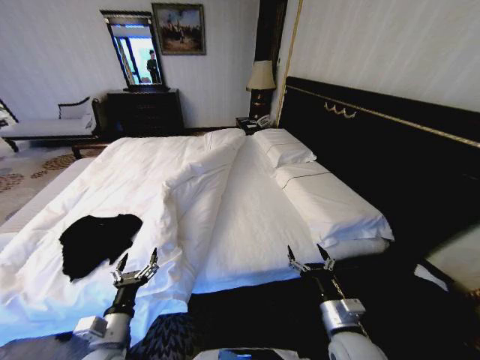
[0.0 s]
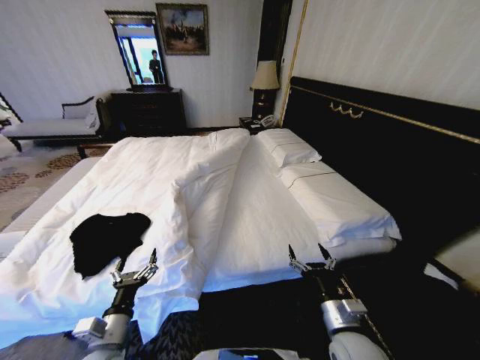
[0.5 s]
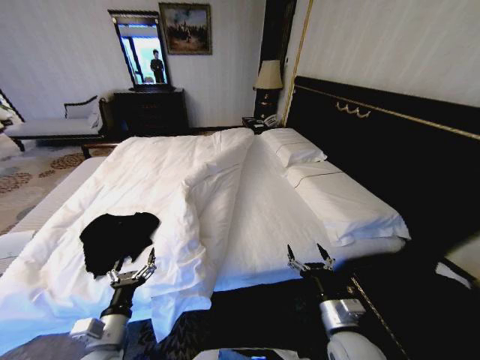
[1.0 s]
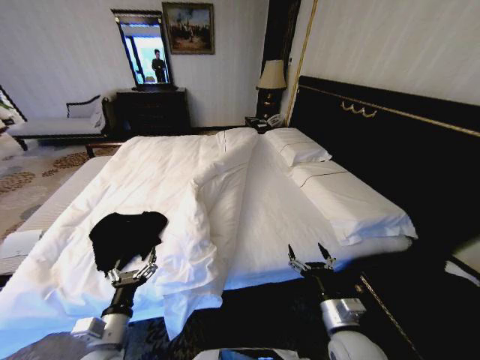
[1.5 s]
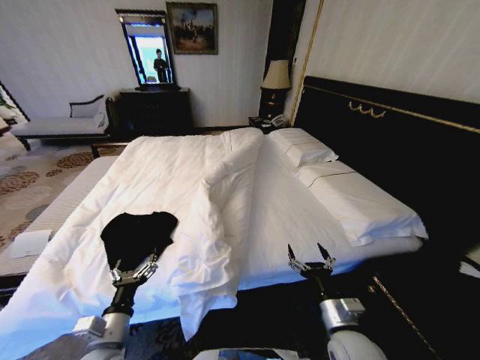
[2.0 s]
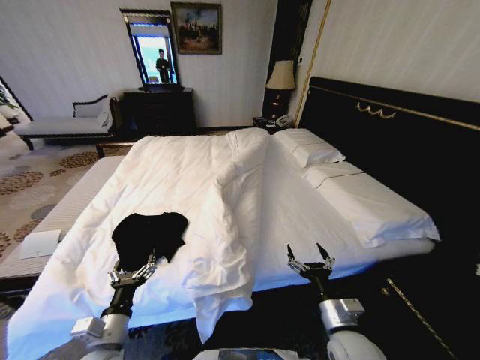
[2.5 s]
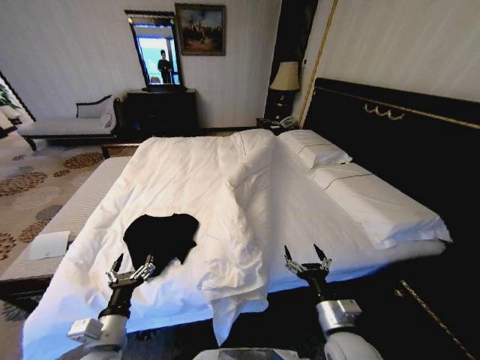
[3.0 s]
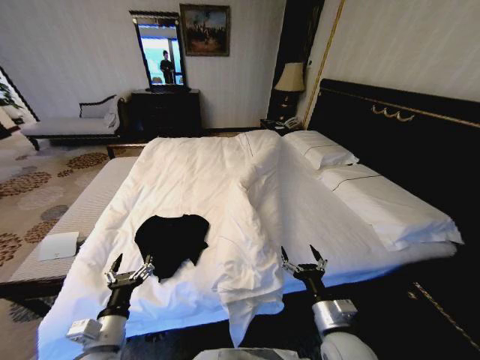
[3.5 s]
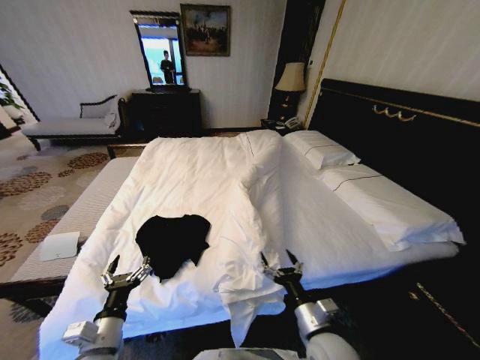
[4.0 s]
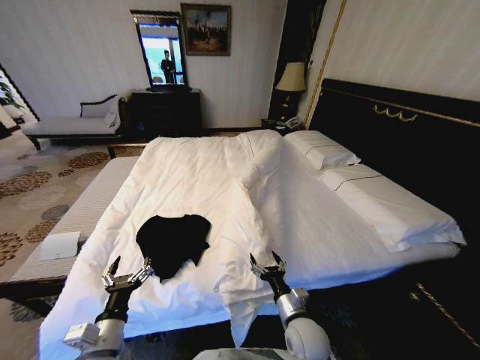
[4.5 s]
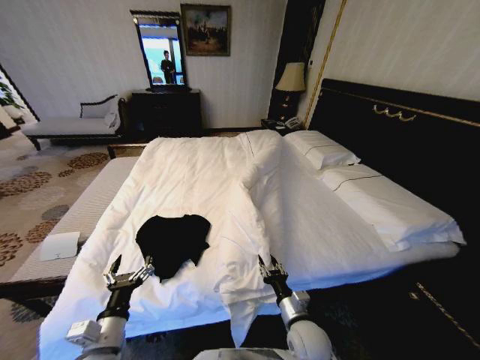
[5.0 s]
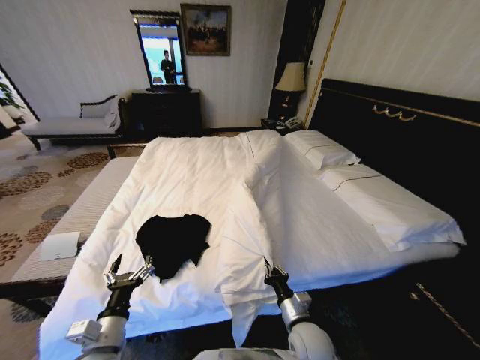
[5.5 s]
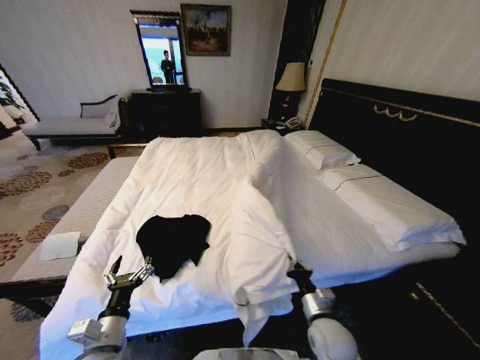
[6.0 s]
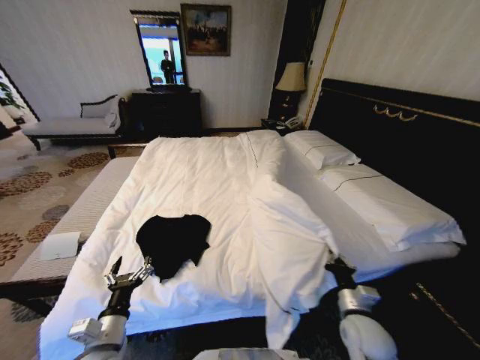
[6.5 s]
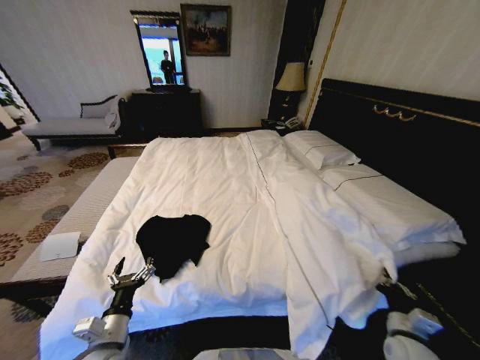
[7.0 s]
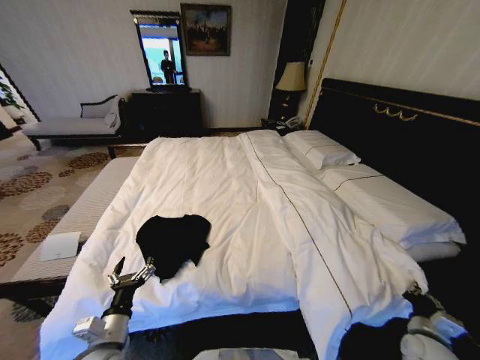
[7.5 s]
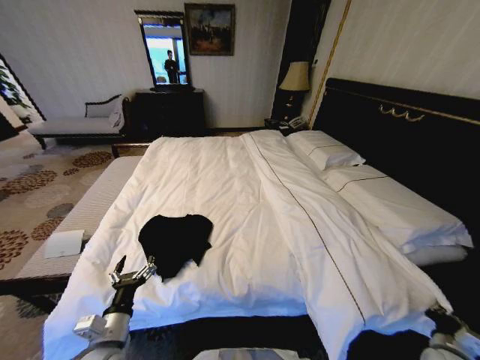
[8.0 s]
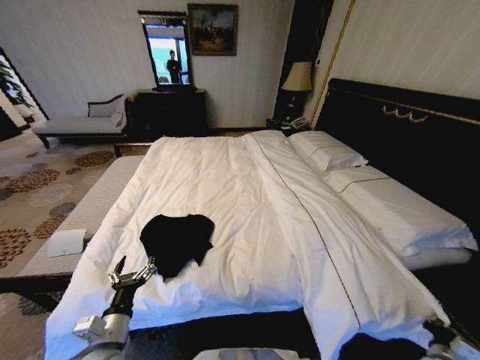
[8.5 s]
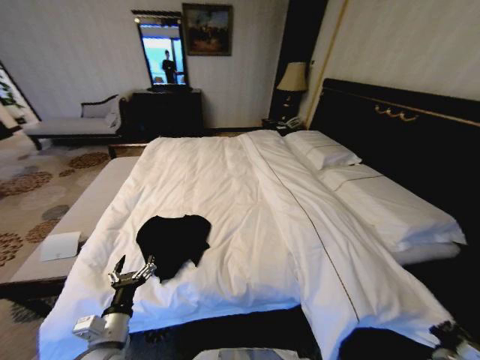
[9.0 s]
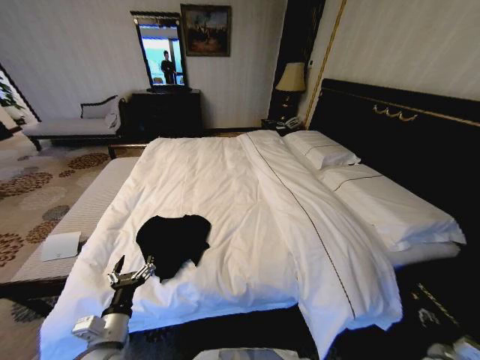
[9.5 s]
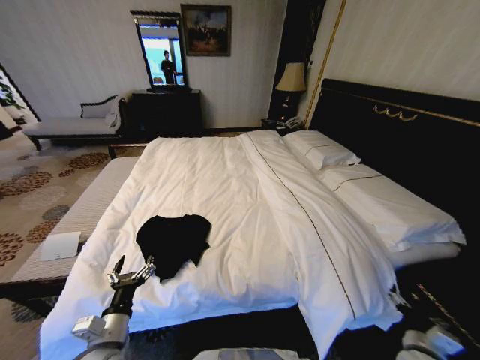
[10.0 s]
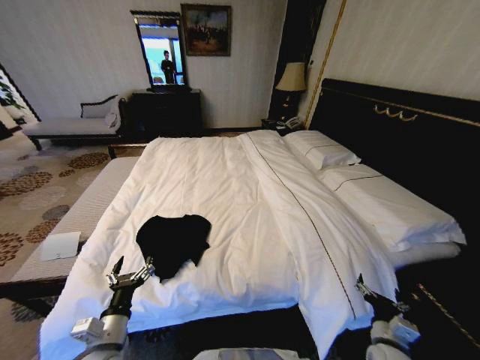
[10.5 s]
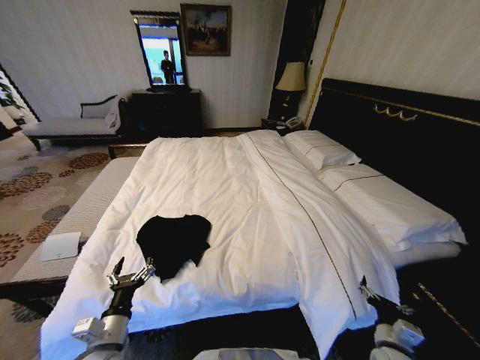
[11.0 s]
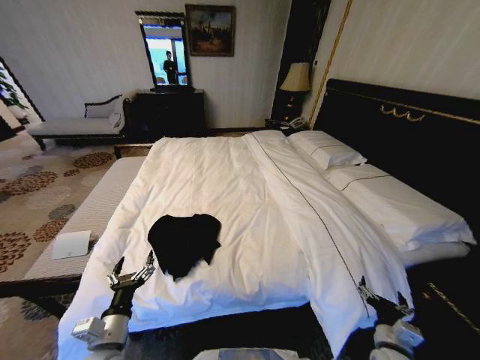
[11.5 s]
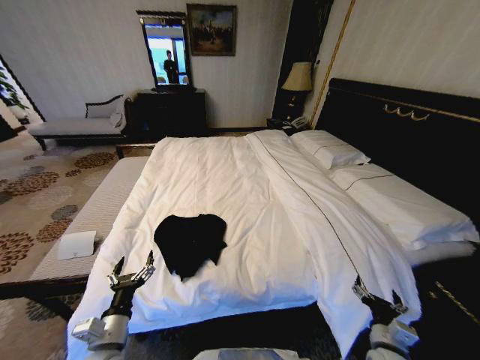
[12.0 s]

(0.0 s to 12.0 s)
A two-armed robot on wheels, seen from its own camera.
Task of the whole recording: Fold the clothes on the bed.
4.0 s - 6.0 s: The right gripper travels downward by approximately 5 cm, and closes its fingers.
6.0 s - 8.0 s: The right gripper shifts approximately 30 cm to the right.
8.0 s - 10.0 s: The right gripper goes about 10 cm to the left, and opens.
10.0 s - 12.0 s: The right gripper heads to the left, covering approximately 5 cm.

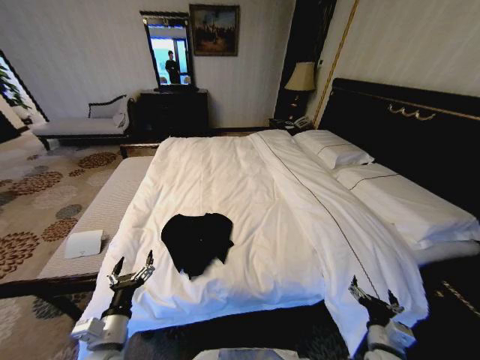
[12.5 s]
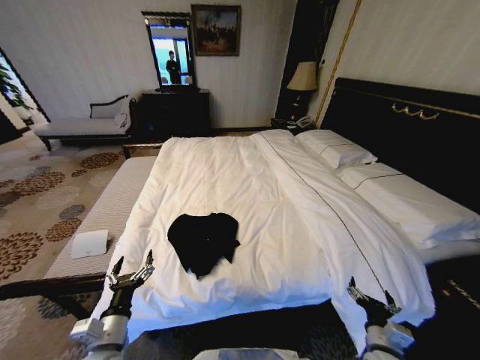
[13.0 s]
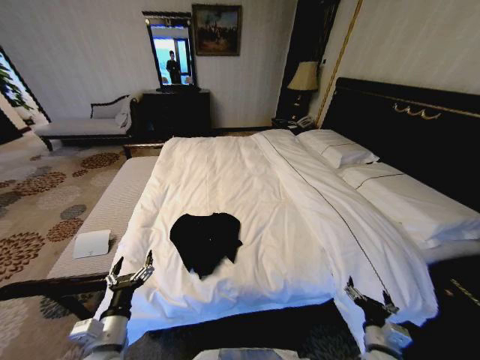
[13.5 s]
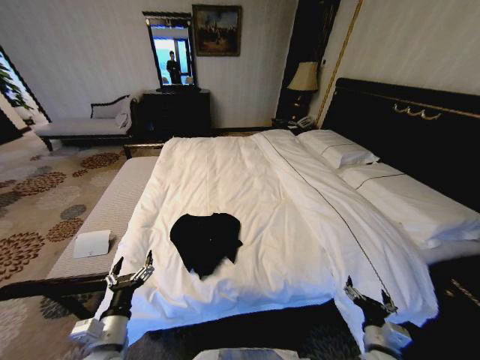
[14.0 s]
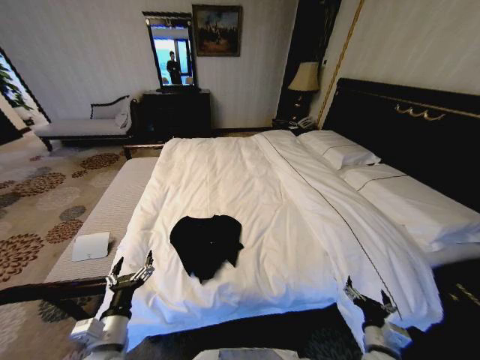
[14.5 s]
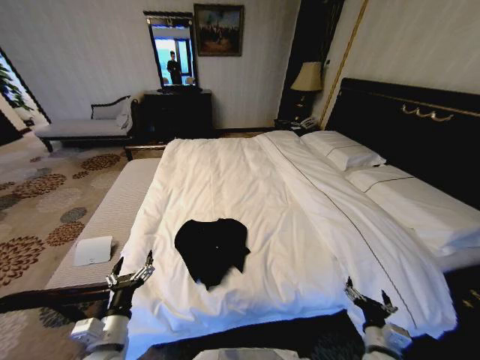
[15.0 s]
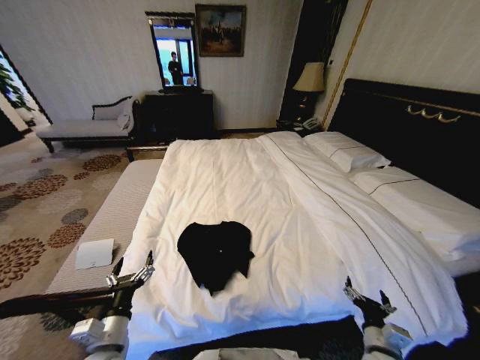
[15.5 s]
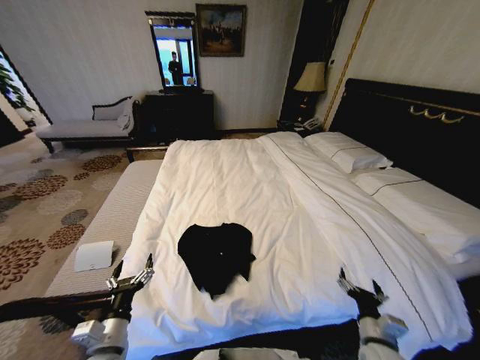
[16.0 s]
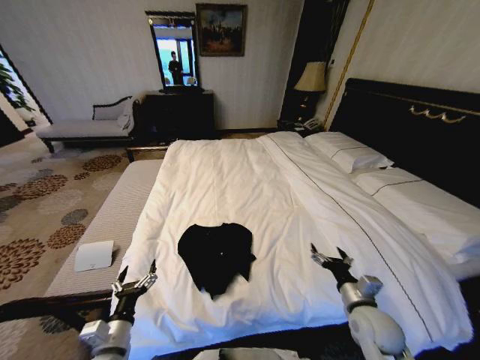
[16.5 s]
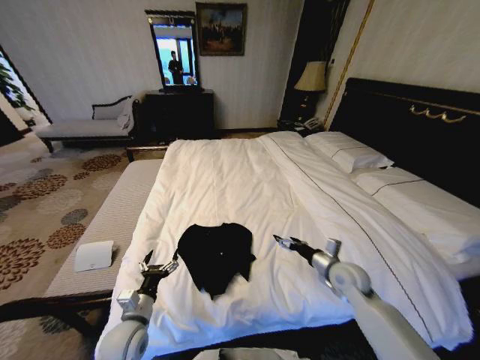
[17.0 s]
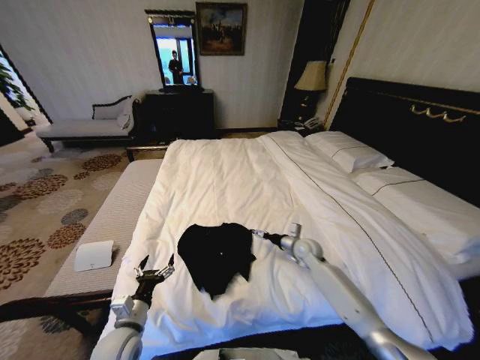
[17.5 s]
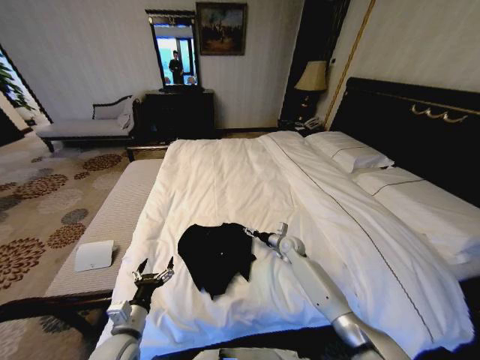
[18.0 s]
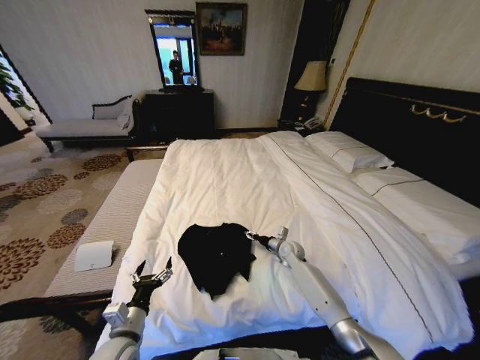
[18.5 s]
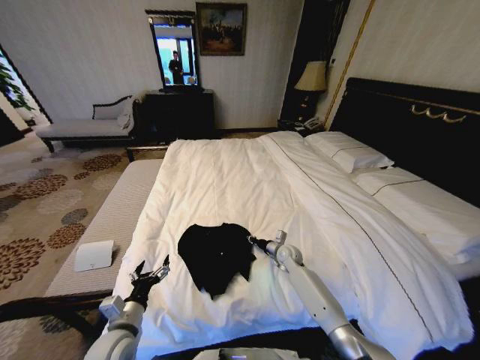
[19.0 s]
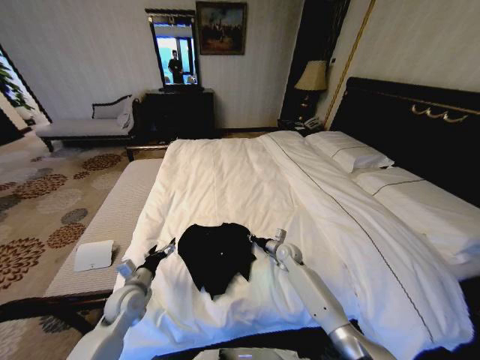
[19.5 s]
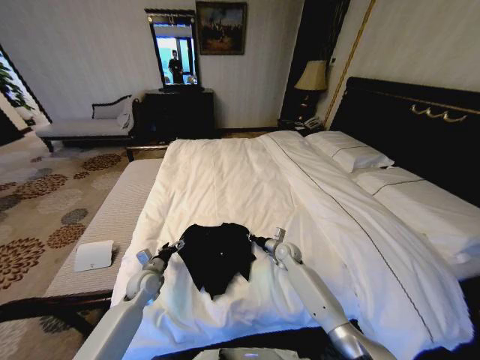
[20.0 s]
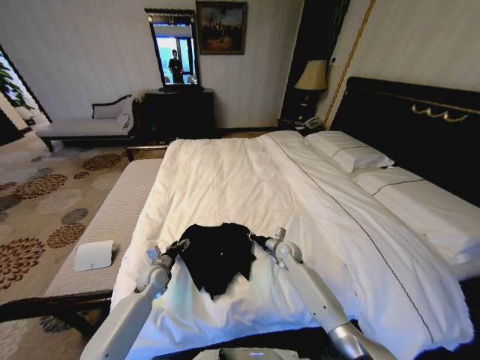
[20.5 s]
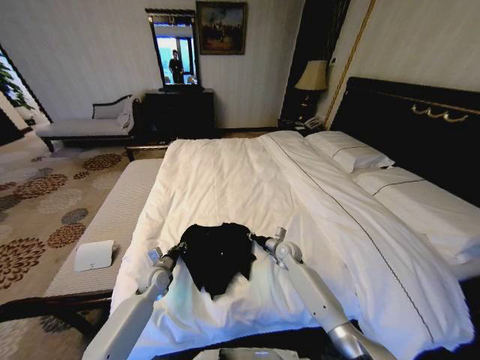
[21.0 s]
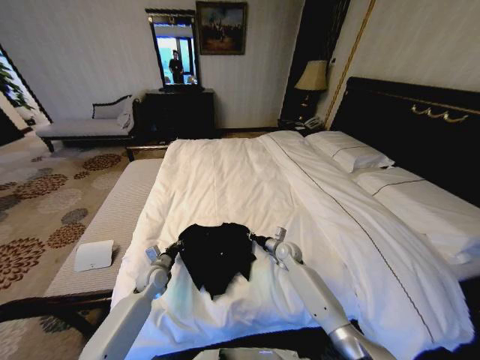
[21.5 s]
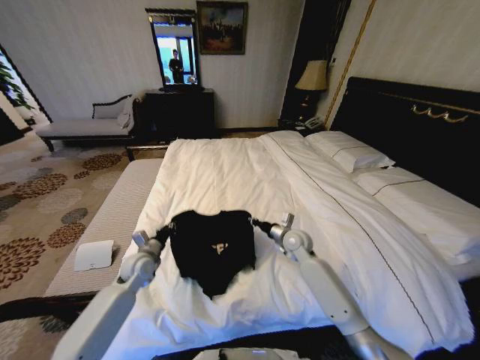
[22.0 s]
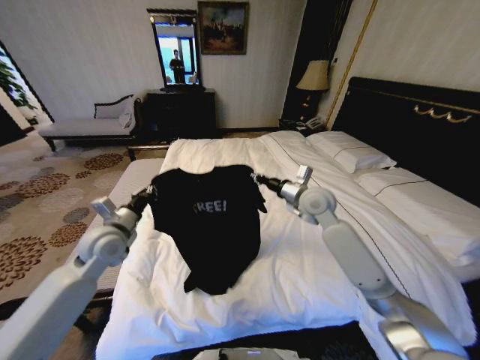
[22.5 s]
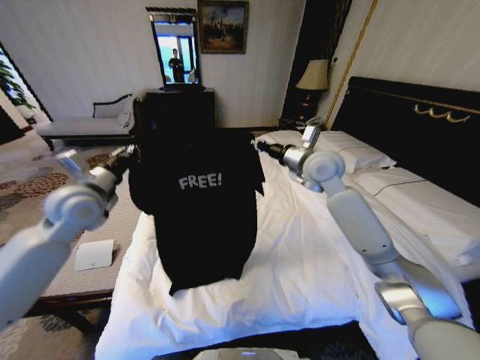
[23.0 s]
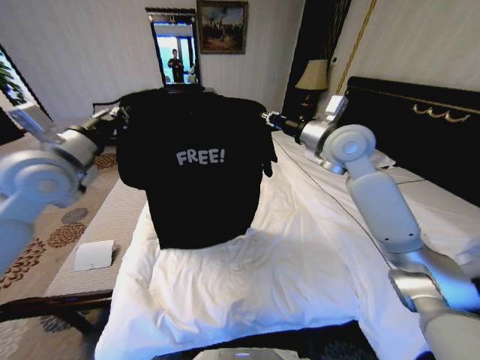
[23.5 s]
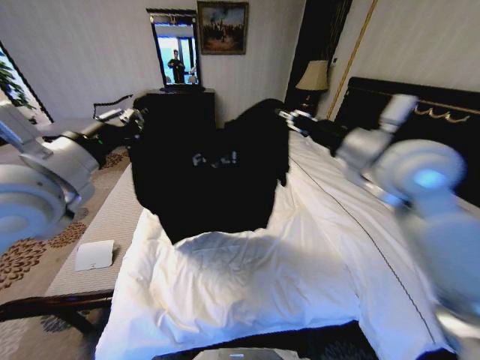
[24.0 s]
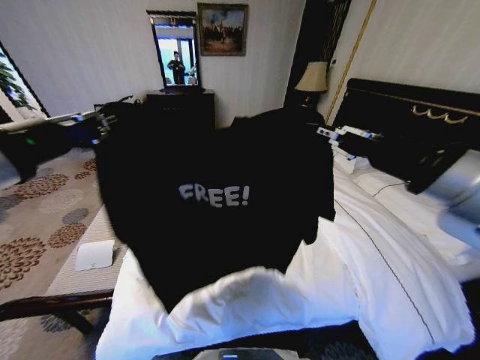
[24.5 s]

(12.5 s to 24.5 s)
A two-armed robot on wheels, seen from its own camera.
Task of the whole recording: Fold the clothes on the bed.
12.5 s - 14.5 s: The two grippers keep their place.
14.5 s - 16.5 s: The right gripper shifts approximately 10 cm forward and upward.
16.5 s - 18.5 s: The right gripper is displaced forward by some 25 cm.
18.5 s - 20.5 s: The left gripper heads forward and downward, covering some 25 cm; the right gripper closes its fingers.
20.5 s - 22.5 s: The grippers both shift upward by roughly 25 cm. The left gripper closes.
22.5 s - 24.5 s: The right gripper is displaced backward and upward by about 30 cm; the left gripper heads upward and backward, covering approximately 35 cm.

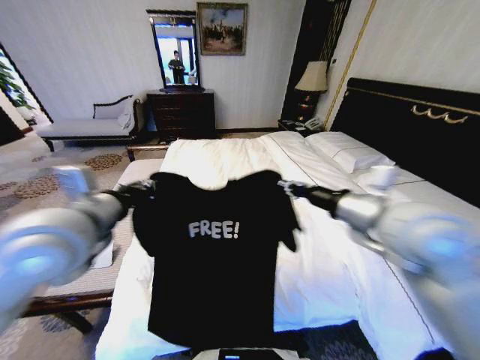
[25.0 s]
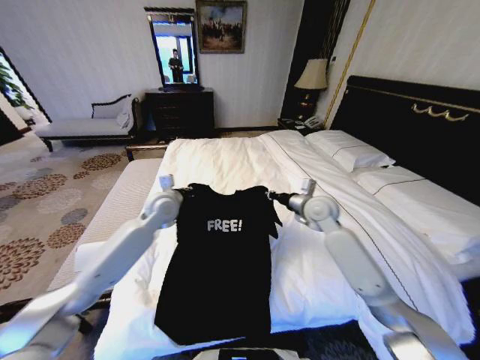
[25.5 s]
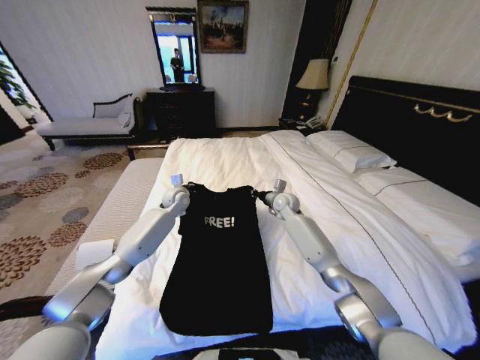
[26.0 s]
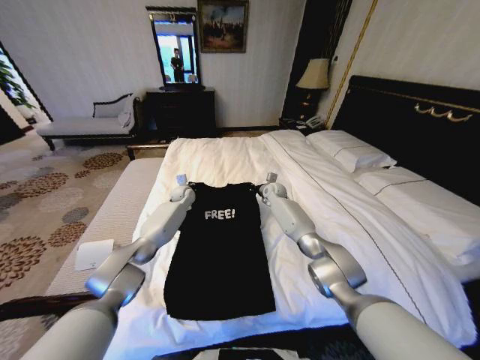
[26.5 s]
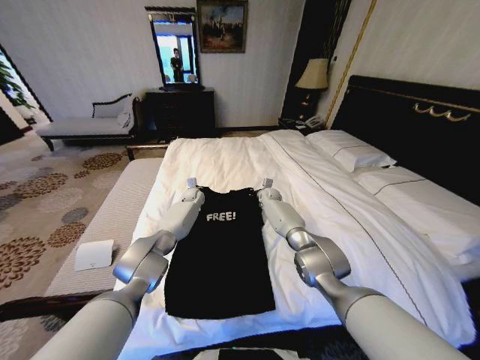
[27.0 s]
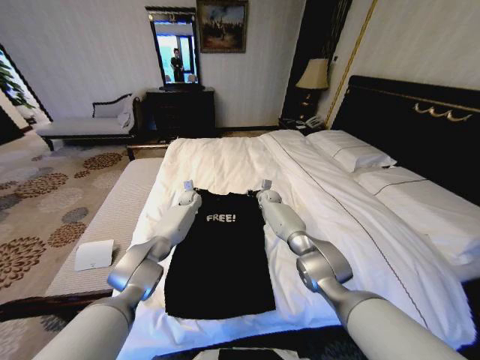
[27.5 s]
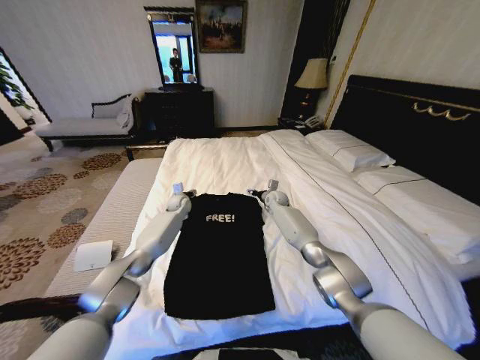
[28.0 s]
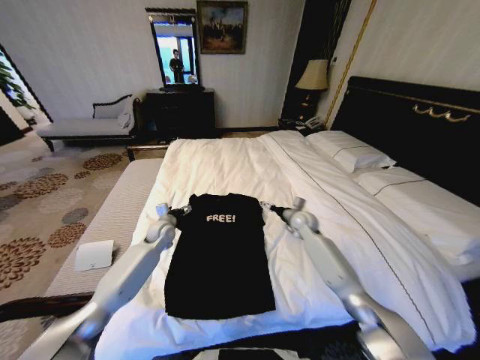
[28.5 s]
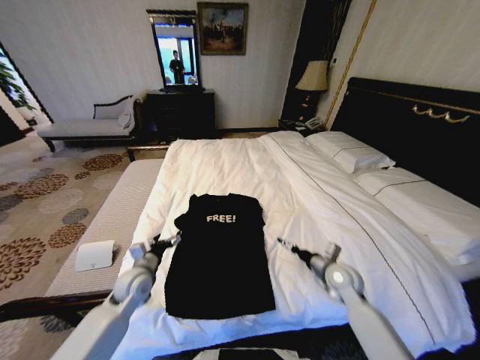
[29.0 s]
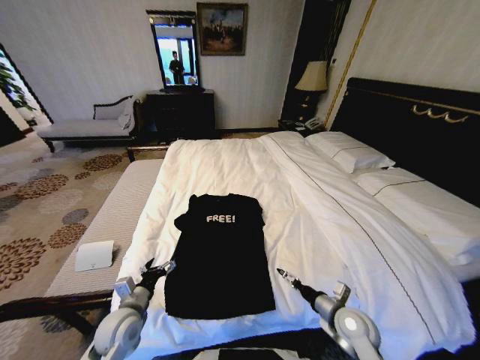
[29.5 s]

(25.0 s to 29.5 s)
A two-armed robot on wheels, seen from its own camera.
Task of the whole recording: Fold the clothes on the bed.
25.0 s - 27.0 s: Both grippers travel together forward and downward, roughly 50 cm.
27.0 s - 29.5 s: Both grippers travel together backward, some 50 cm. The right gripper opens; the left gripper opens up.
